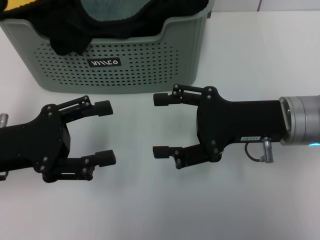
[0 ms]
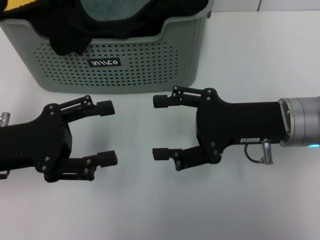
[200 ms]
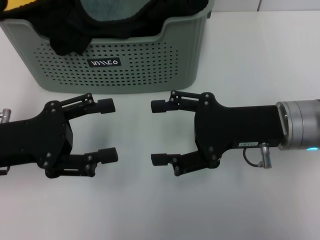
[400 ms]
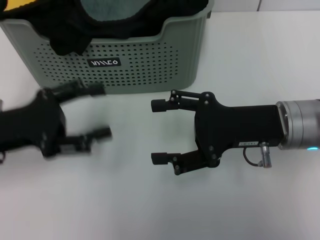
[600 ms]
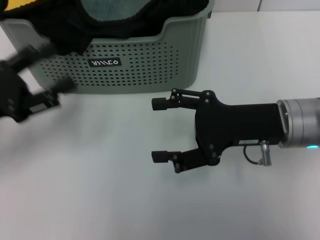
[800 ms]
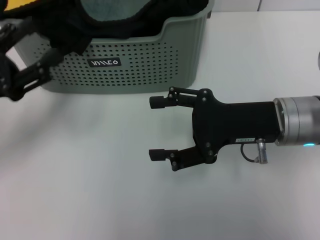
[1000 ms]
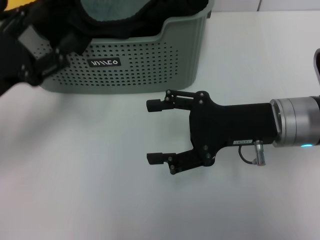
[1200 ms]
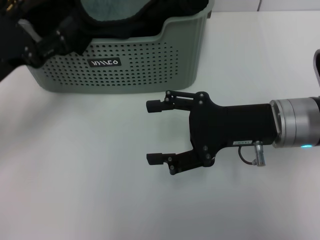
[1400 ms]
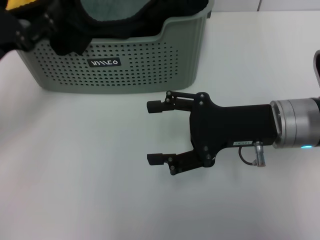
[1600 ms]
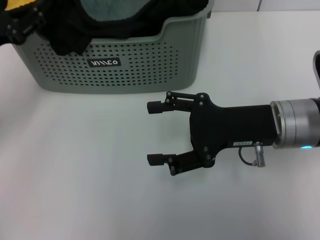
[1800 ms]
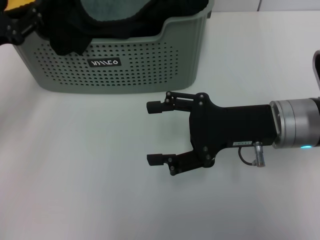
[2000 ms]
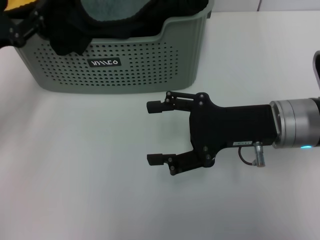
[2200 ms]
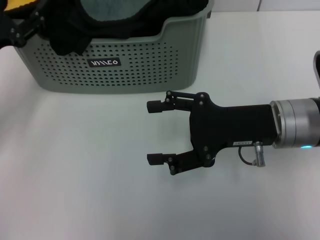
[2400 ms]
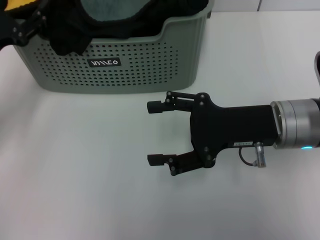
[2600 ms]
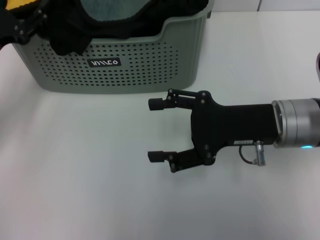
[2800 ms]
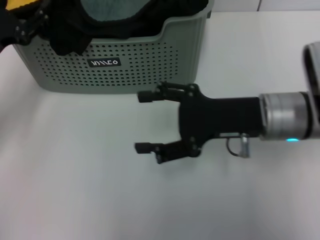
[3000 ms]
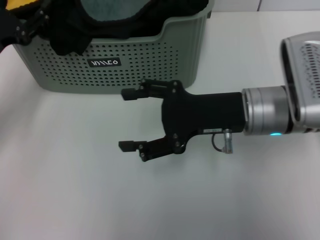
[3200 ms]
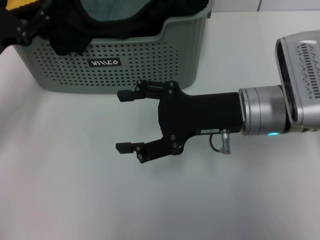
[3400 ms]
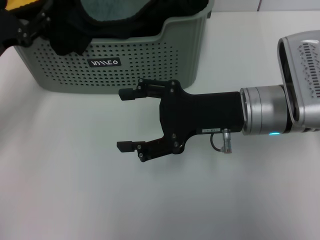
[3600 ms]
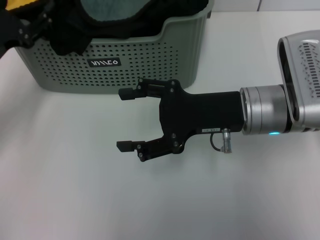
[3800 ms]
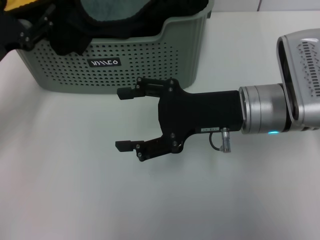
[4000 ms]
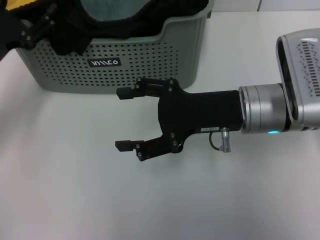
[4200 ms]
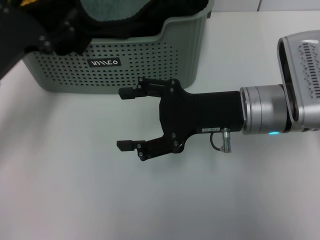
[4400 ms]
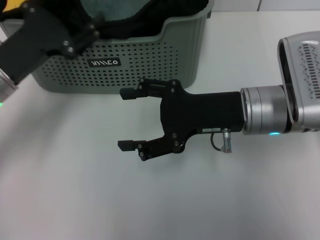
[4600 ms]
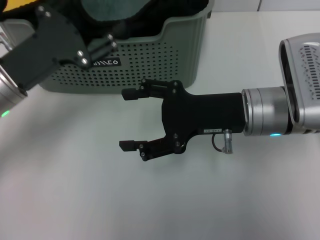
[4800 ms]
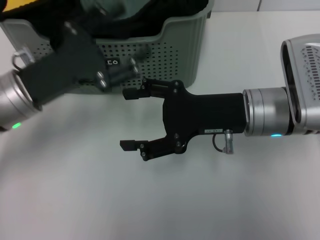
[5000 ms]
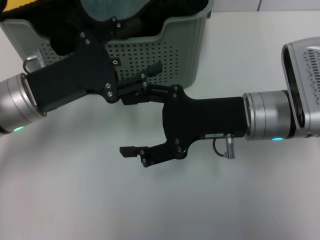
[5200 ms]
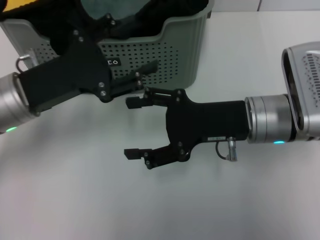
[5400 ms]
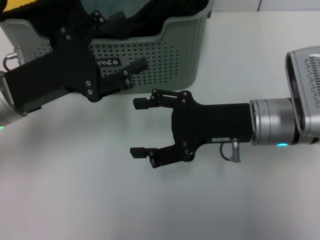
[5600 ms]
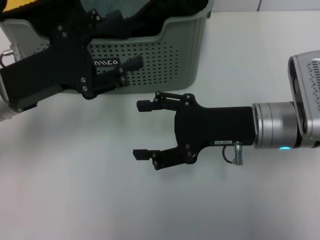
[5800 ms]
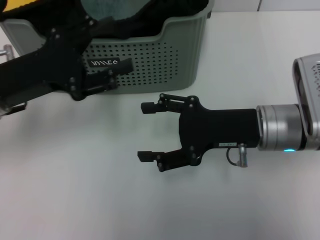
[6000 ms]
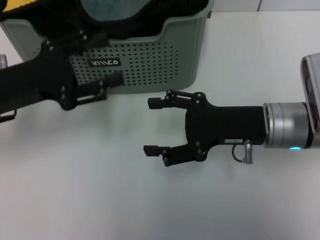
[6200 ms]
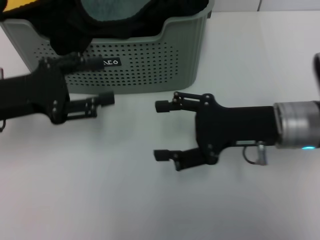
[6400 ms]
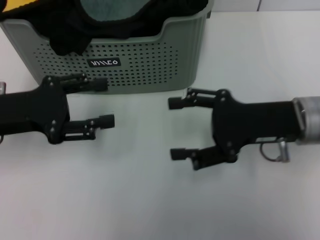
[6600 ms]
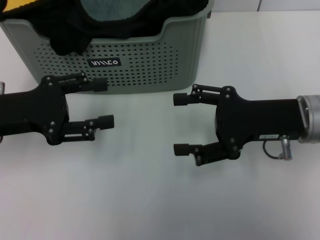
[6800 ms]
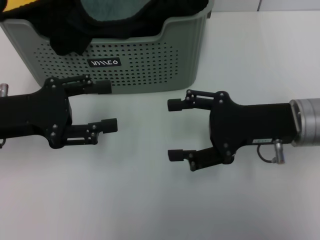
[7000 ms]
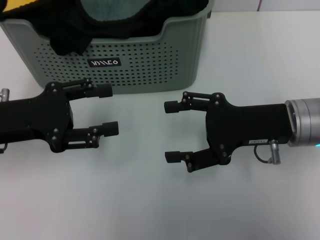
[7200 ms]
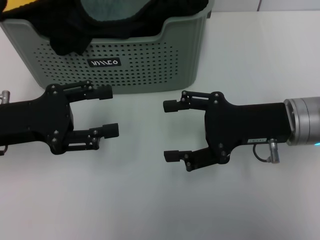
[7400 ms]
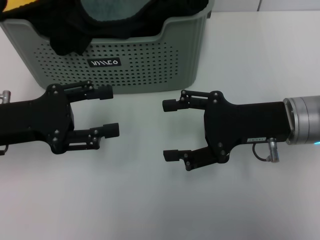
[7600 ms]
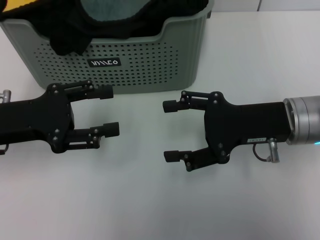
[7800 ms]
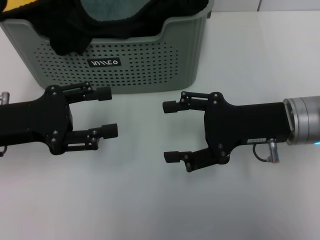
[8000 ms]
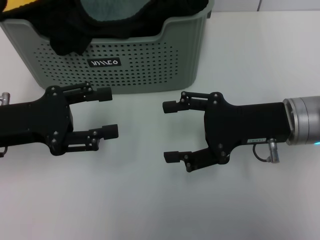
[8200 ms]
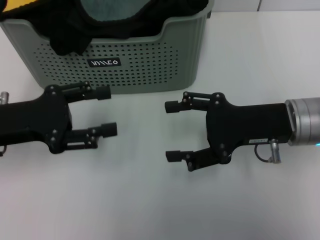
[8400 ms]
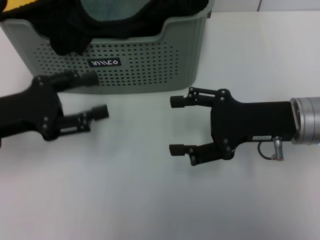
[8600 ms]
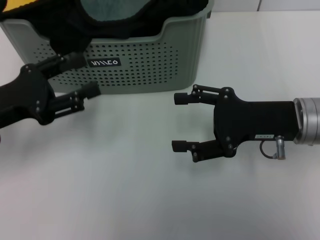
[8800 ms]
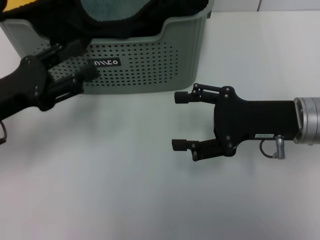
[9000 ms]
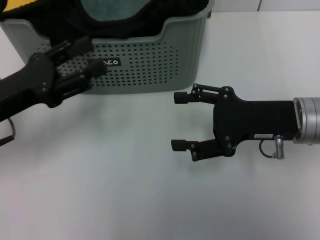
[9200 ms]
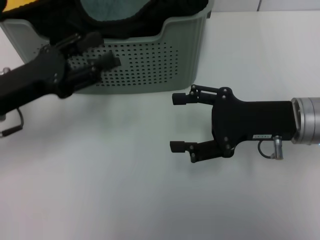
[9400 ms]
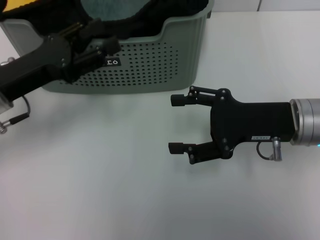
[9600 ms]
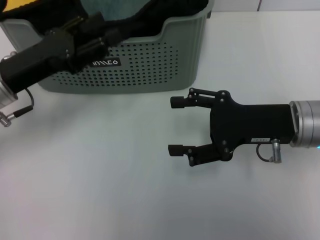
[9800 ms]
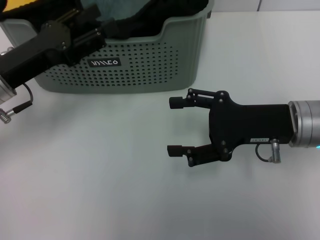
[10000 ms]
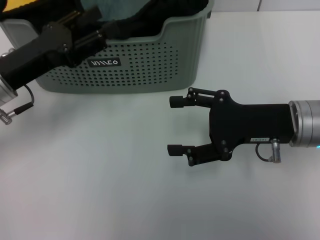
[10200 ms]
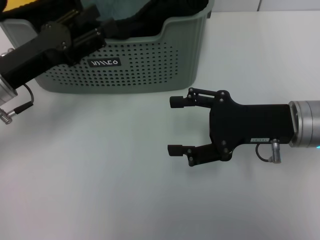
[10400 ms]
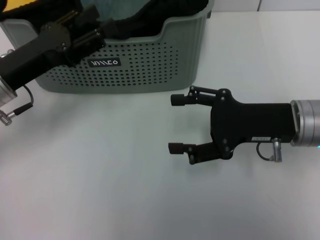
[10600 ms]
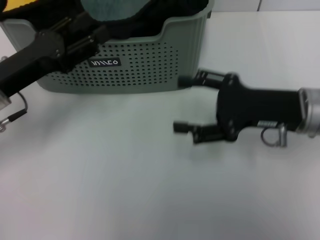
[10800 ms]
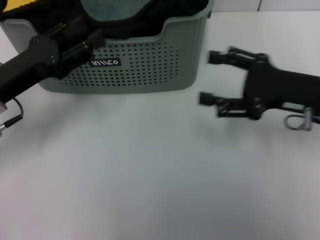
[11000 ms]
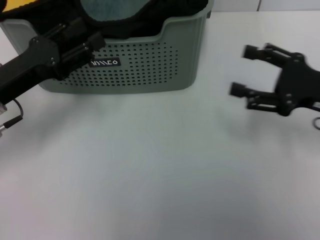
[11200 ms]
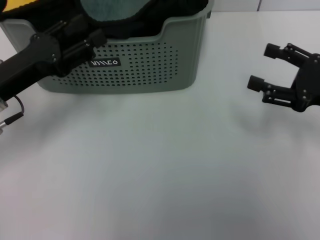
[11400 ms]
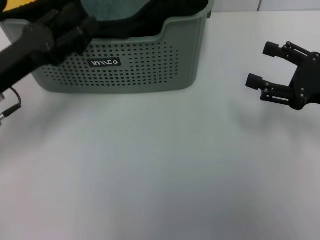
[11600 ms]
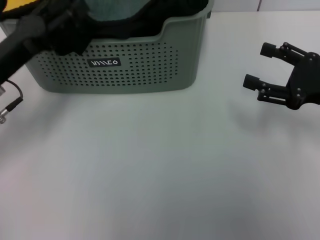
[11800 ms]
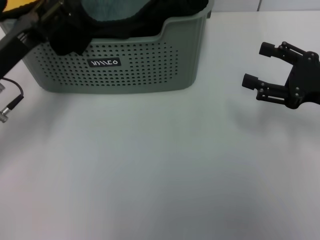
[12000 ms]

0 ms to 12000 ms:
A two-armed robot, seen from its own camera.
Task of the whole recording: pick up the towel from the storage box and lay it flat on the table.
0 ms to 1600 ms: The left gripper moves forward, approximately 5 cm.
1600 ms to 4400 ms: The grippers move only a little.
9000 ms to 10400 ms: The left gripper changes place by roughly 5 cm.
10400 ms to 12000 ms: The right gripper shifts some 10 cm to the right.

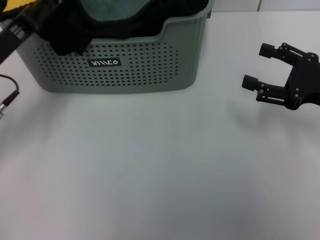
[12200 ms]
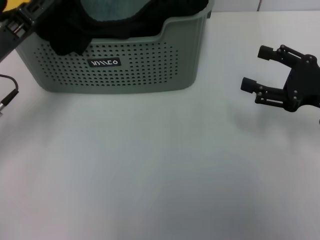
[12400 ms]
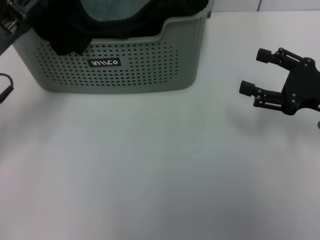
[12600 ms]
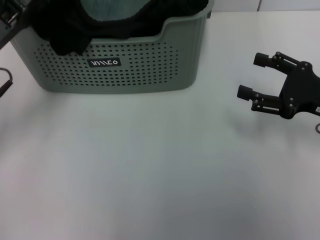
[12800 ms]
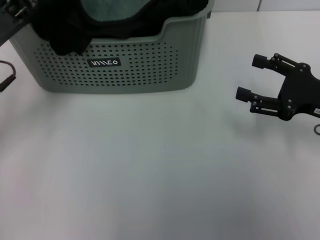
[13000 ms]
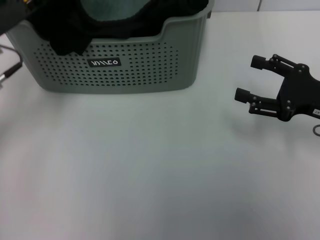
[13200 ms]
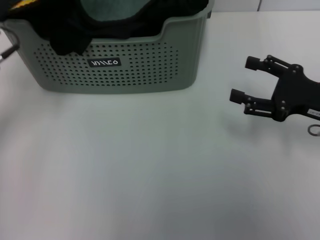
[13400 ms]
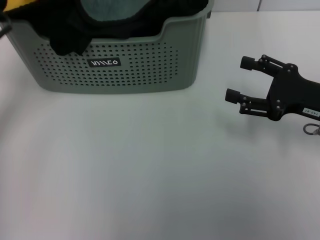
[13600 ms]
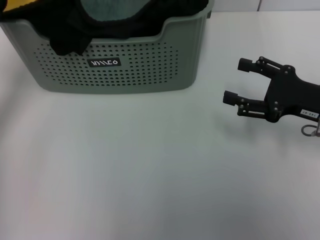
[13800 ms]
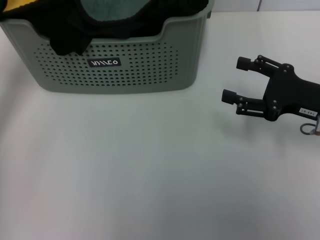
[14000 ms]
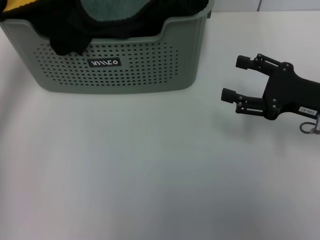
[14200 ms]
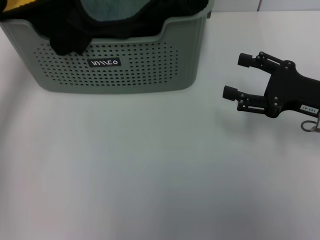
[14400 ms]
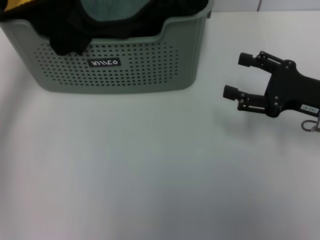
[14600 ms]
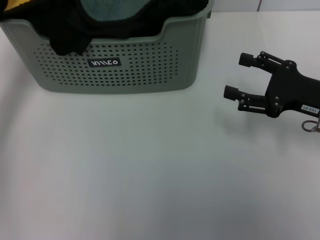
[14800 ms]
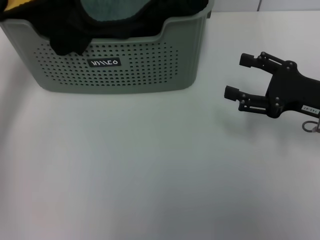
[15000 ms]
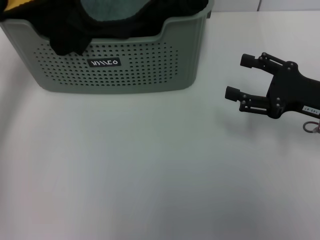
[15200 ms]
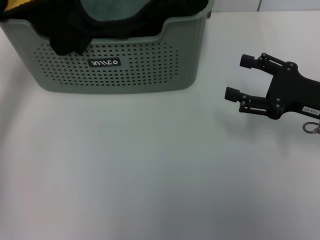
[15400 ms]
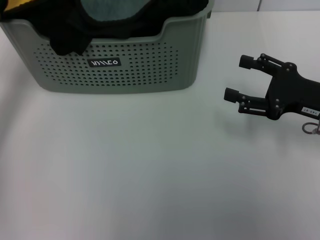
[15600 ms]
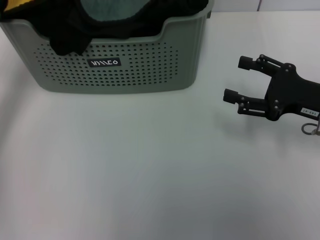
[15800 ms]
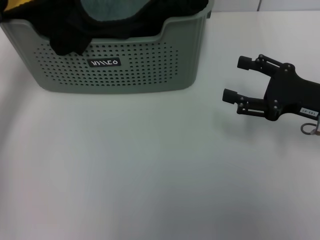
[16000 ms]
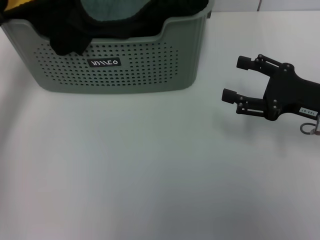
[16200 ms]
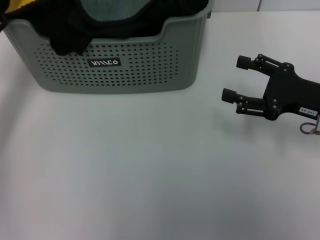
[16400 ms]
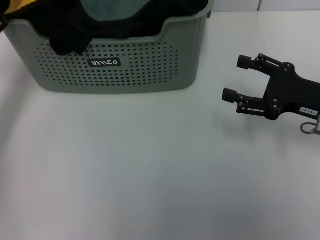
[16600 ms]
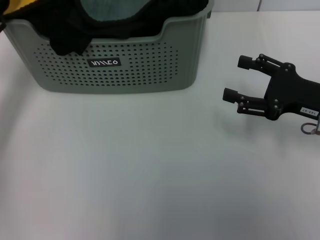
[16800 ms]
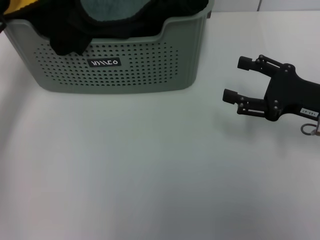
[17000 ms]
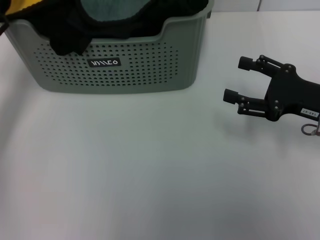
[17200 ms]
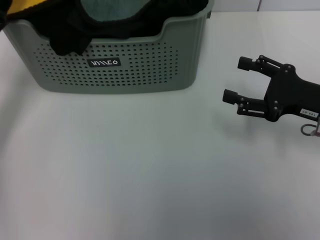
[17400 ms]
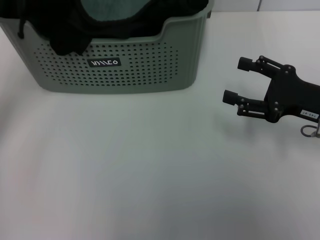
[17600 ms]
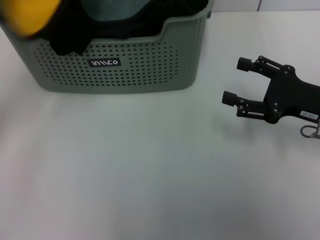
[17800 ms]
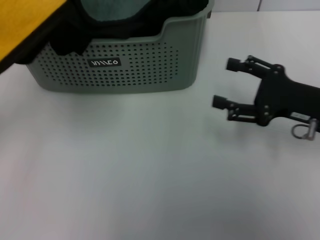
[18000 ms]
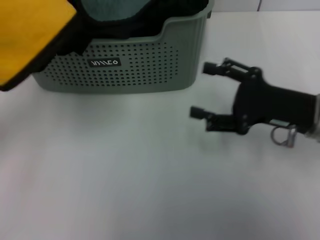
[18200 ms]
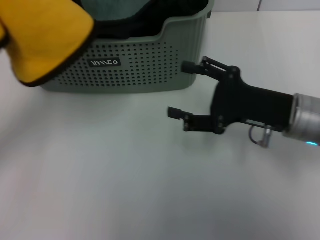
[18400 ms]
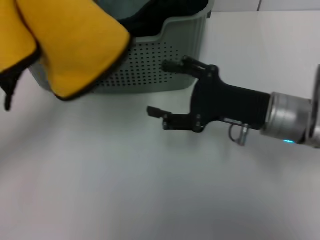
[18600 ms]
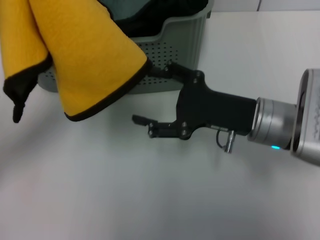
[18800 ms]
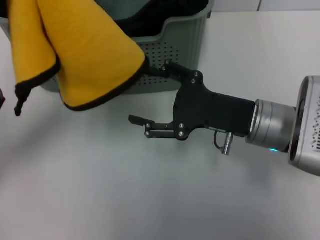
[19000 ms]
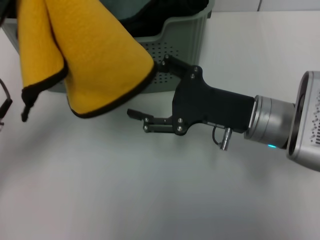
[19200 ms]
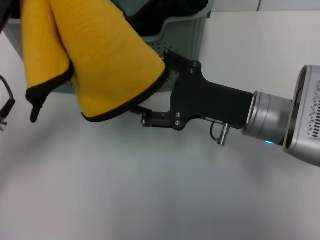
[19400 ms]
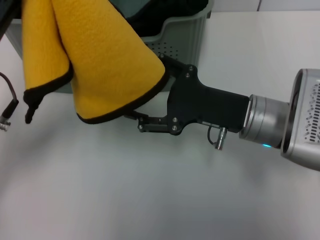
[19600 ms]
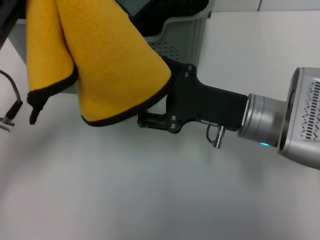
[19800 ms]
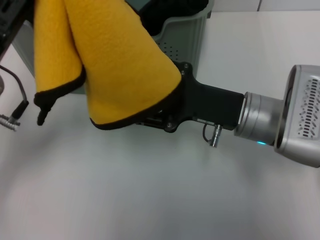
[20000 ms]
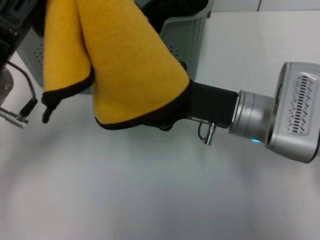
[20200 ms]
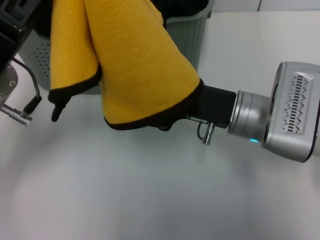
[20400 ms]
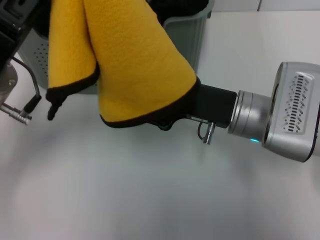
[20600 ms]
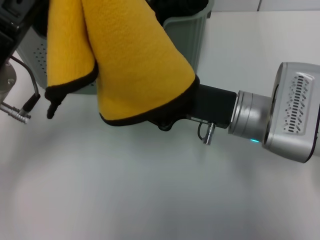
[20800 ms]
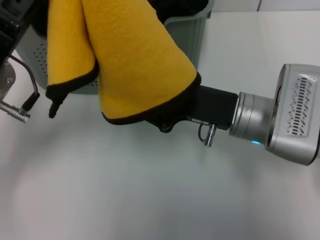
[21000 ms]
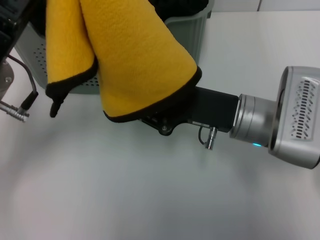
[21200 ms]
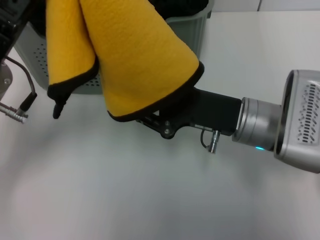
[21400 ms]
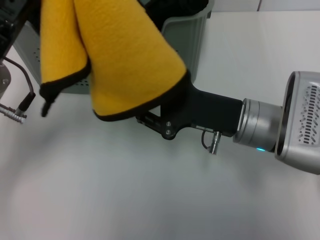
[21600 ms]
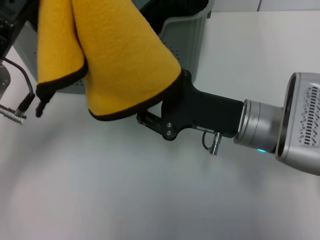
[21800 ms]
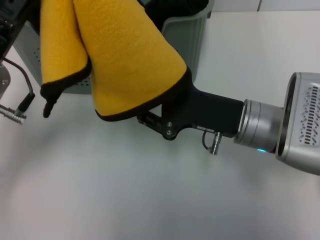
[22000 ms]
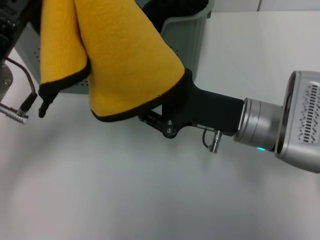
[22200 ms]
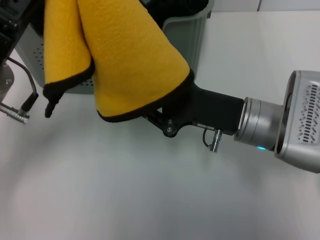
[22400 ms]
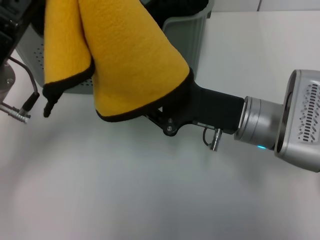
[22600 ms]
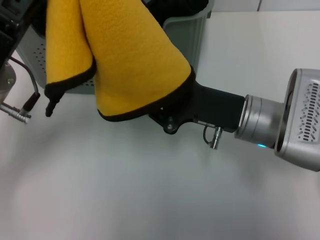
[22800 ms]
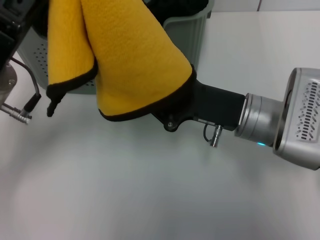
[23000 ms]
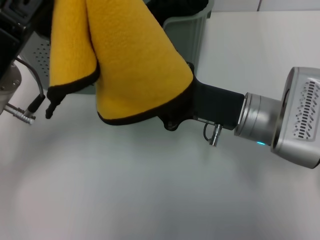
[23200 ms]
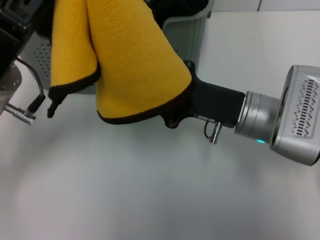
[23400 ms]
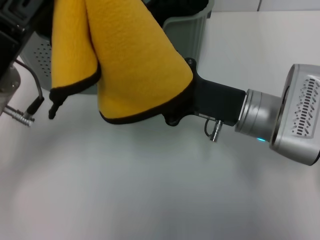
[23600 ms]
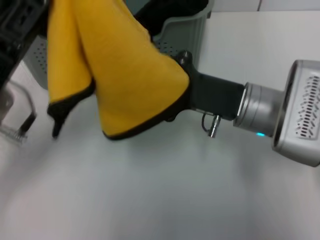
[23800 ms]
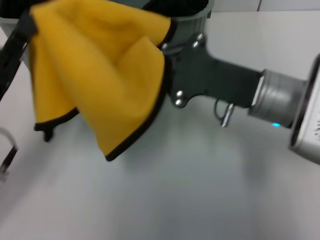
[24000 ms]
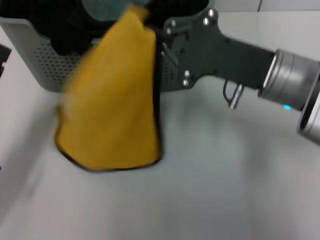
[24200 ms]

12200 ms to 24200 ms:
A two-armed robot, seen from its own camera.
Task of the whole recording: pick up the towel from the storage box and lay it flat on the table.
Step, 12200 ms to 17000 ms: Pick up a towel with the left gripper.
Step, 17400 ms to 23800 ms: Spread the towel flat with the left gripper.
12200 ms to 13800 ms: The left gripper is displaced upward and forward by approximately 10 cm.
15200 ms to 16600 ms: The grippers make only small movements.
16600 ms to 18200 ms: The left gripper is displaced backward by approximately 15 cm, and closes its fingers.
18200 ms to 19800 ms: The left gripper moves to the right, about 5 cm, while the right gripper travels to the left by about 10 cm.
19800 ms to 21200 ms: The right gripper closes.
21200 ms to 22600 ms: Both grippers stay put.
22600 ms to 24200 ms: The right gripper shifts some 5 cm upward. The left gripper moves downward, backward and to the left, about 15 cm.
